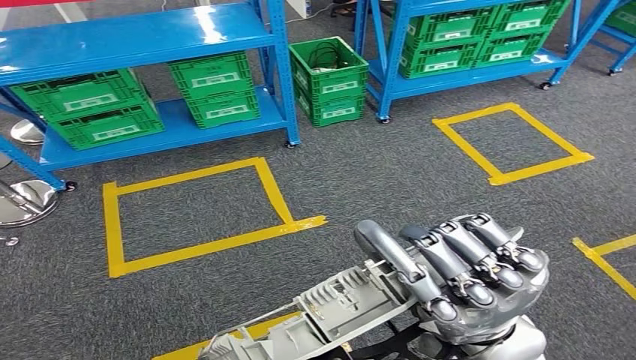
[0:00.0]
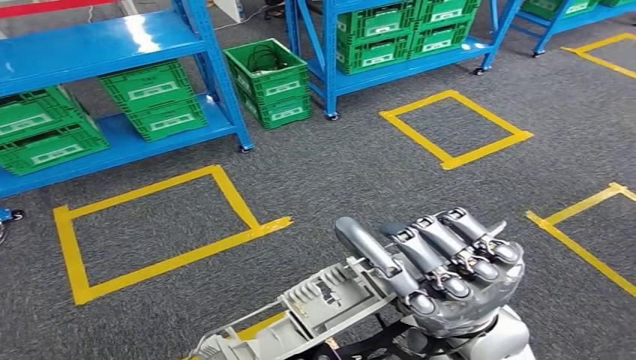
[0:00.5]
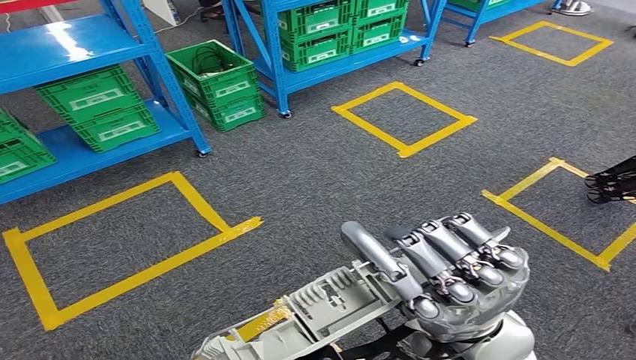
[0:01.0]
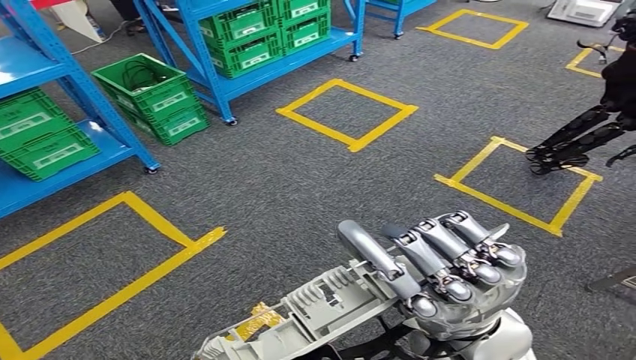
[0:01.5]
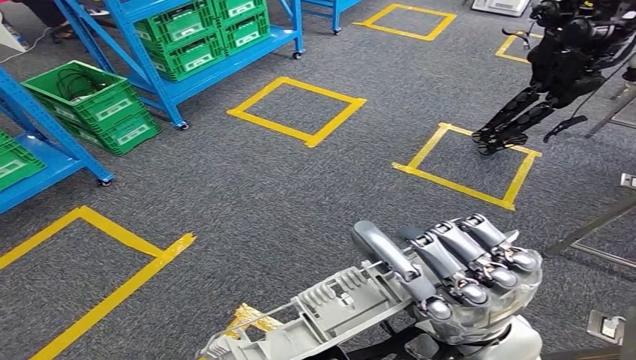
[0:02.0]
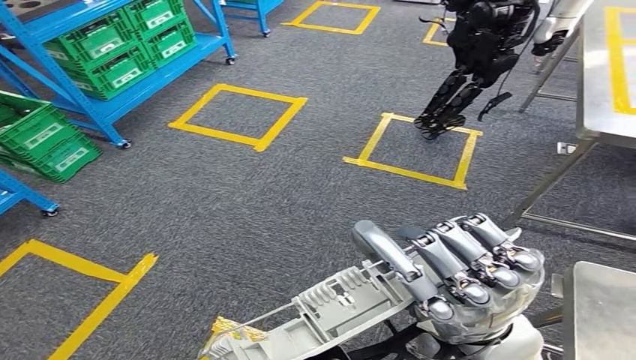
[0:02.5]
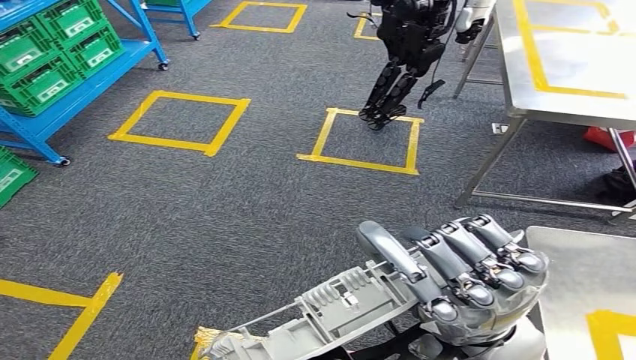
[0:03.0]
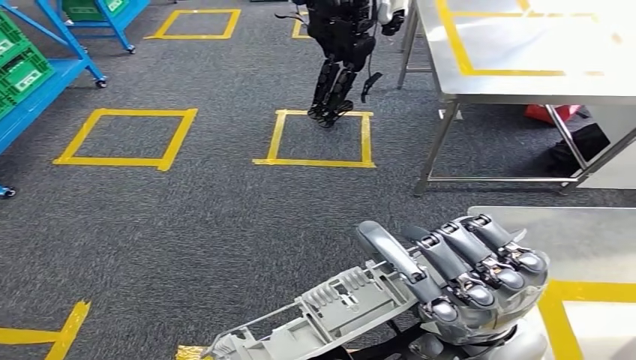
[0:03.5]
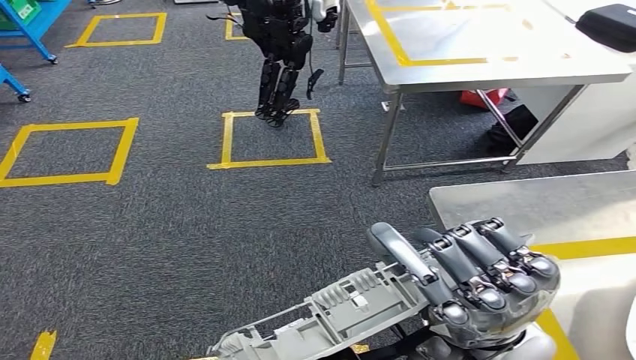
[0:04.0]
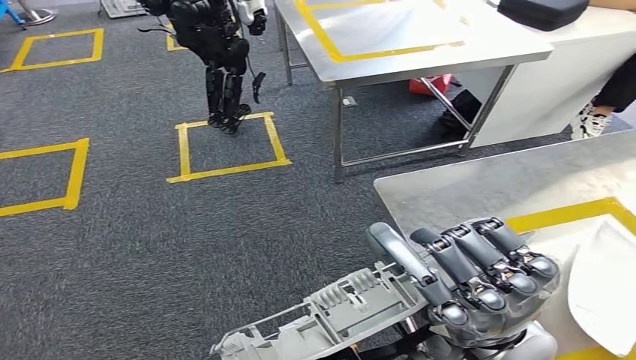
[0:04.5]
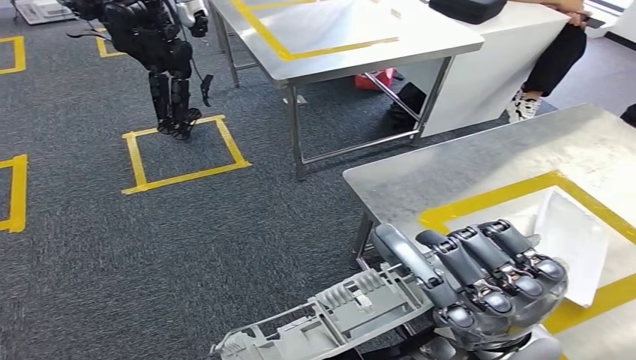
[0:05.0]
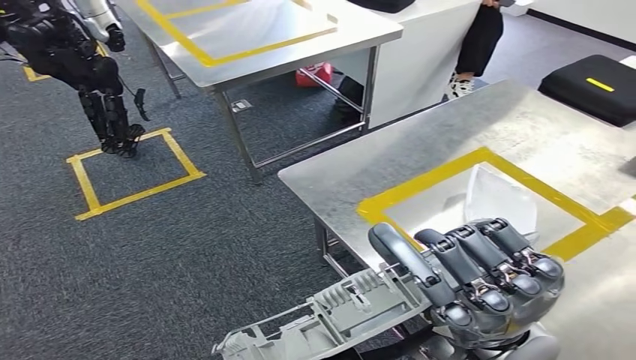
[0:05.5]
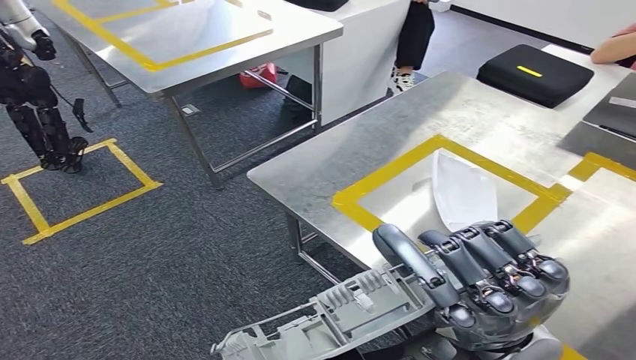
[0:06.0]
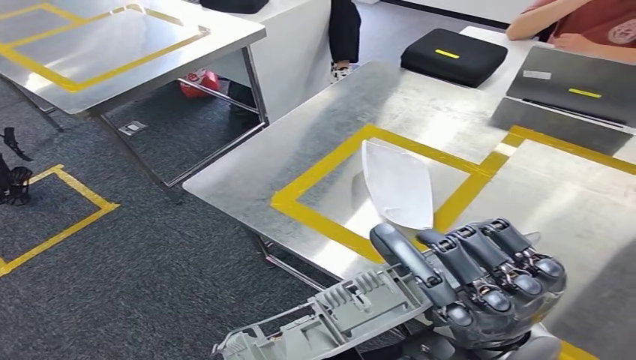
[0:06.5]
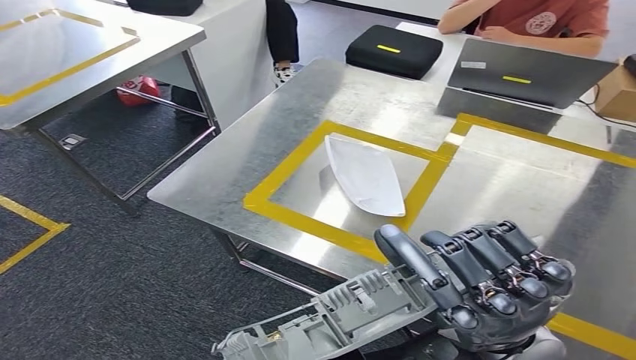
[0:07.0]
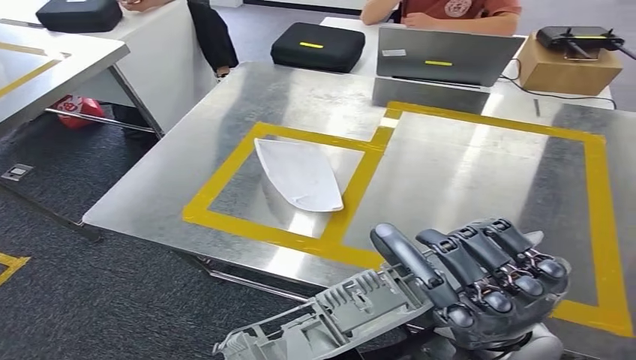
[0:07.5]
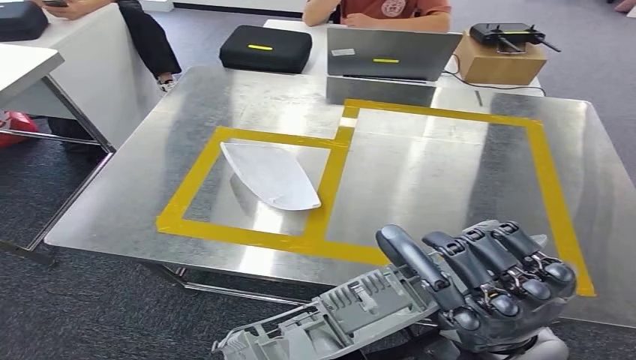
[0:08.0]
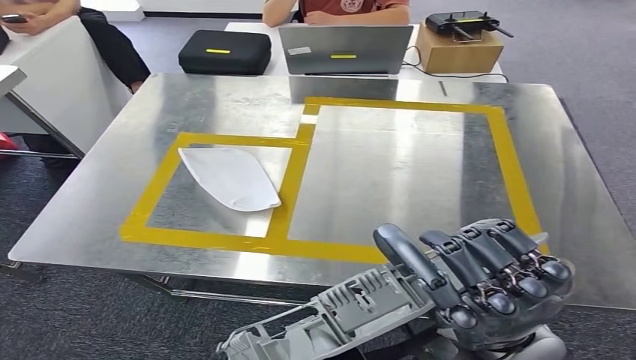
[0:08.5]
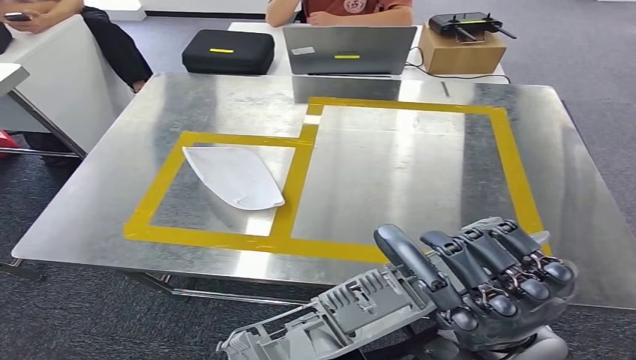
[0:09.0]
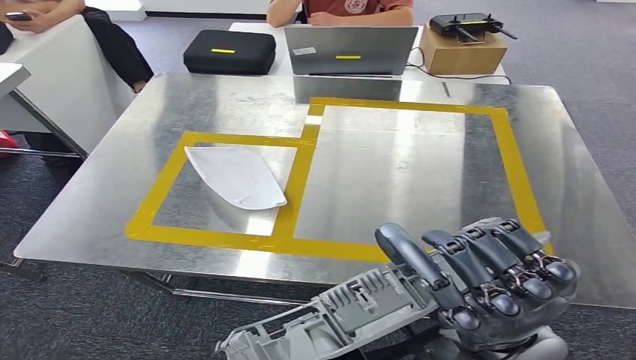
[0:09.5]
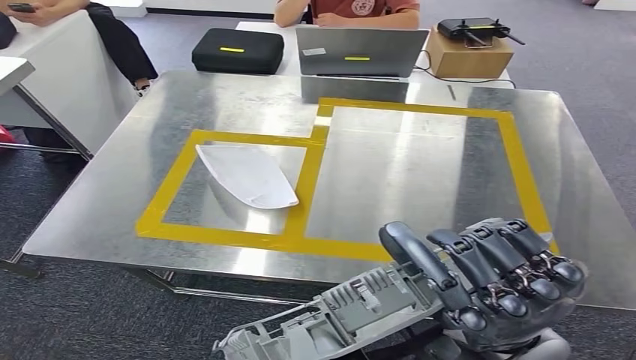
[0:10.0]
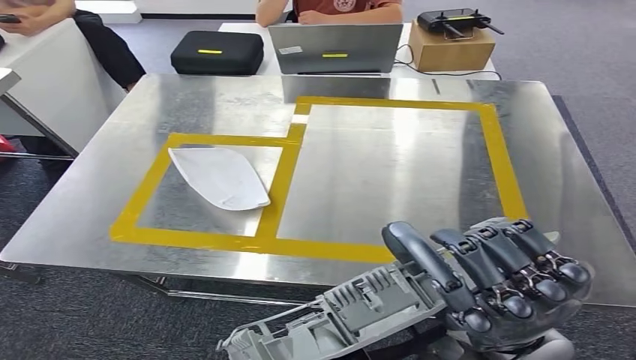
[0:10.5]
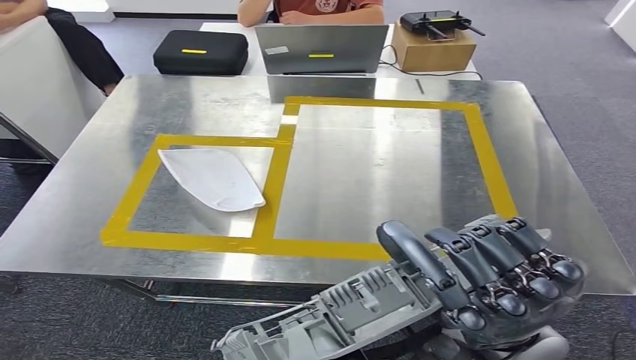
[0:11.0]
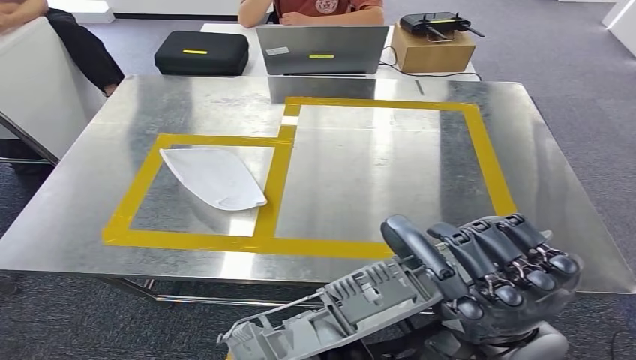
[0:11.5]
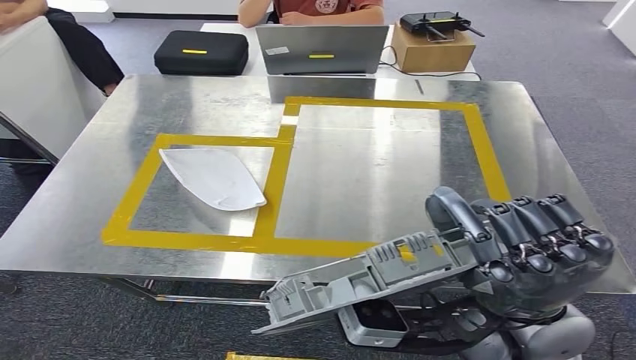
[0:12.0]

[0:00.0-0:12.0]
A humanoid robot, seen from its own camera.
Step, 0:00.0 to 0:02.5: Move the small component to the workbench.

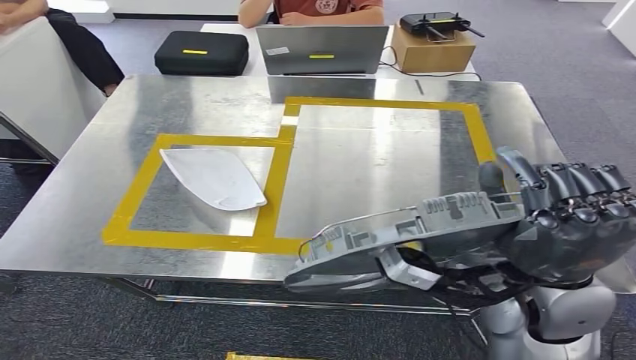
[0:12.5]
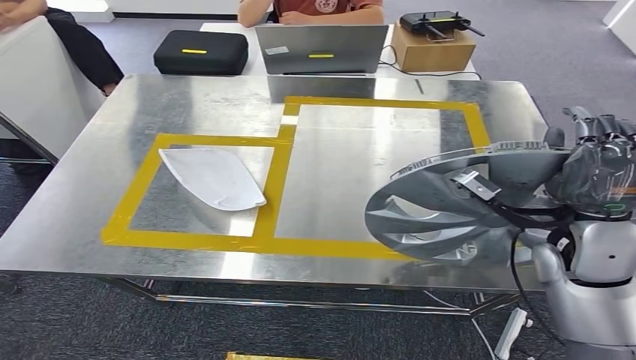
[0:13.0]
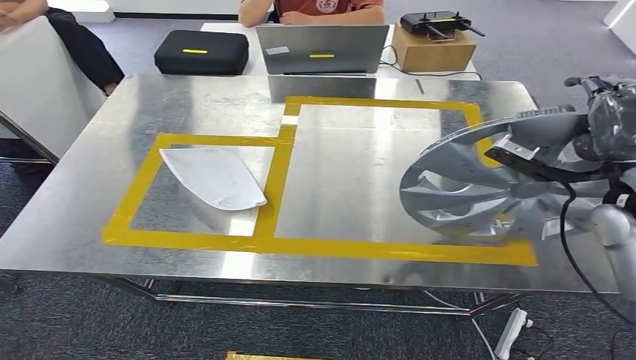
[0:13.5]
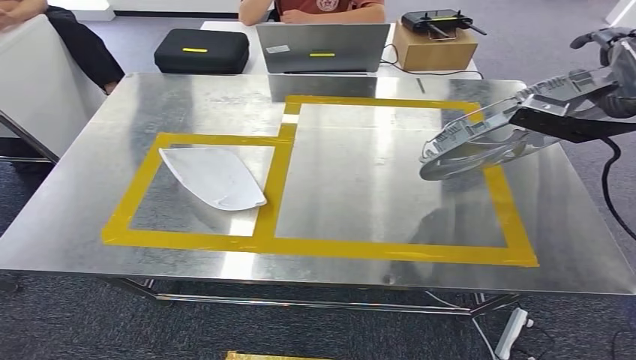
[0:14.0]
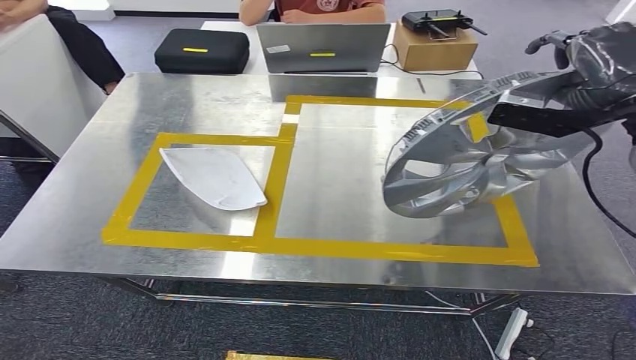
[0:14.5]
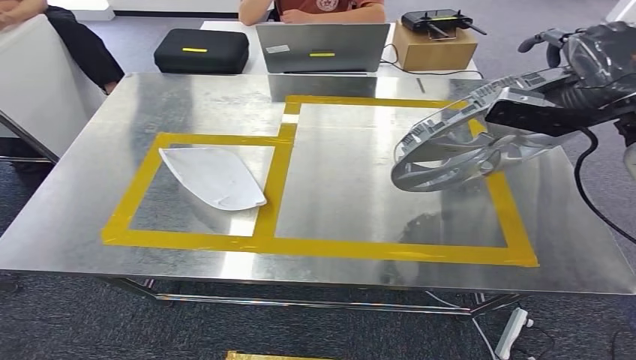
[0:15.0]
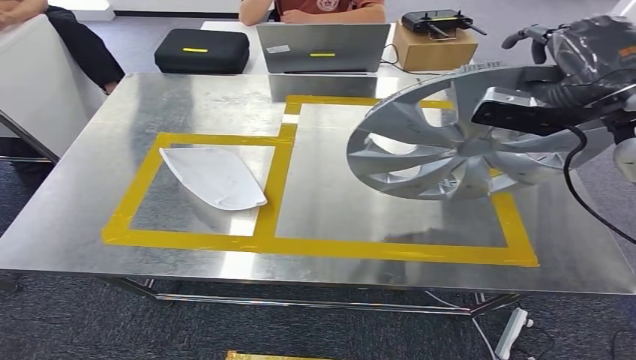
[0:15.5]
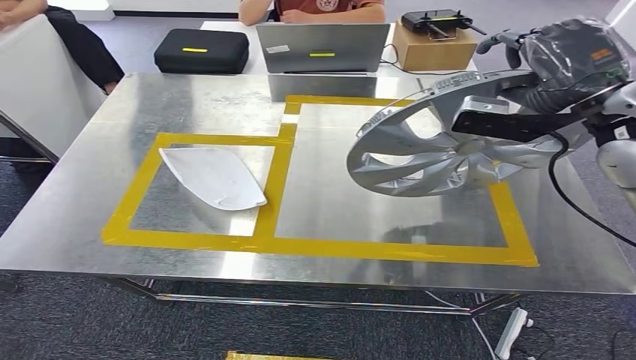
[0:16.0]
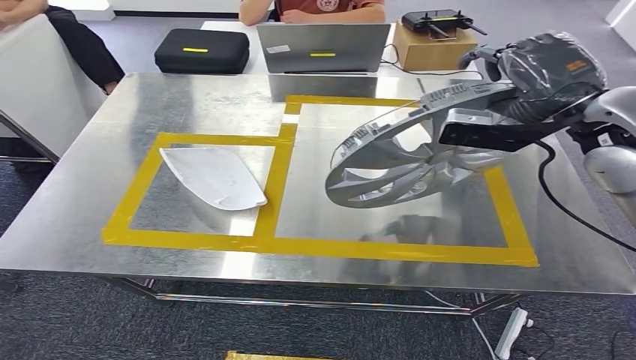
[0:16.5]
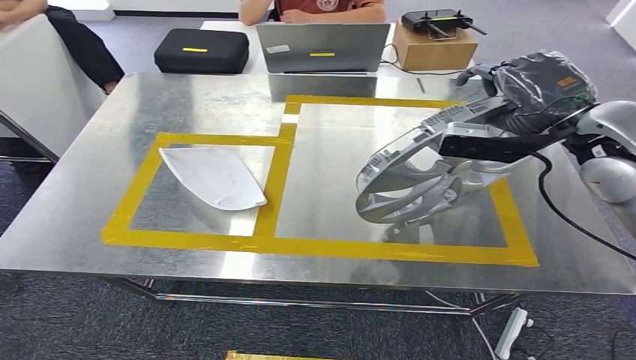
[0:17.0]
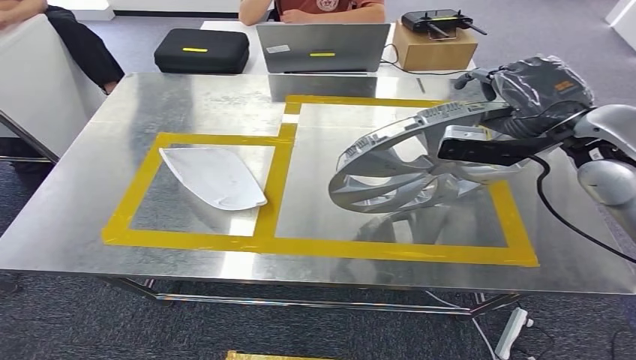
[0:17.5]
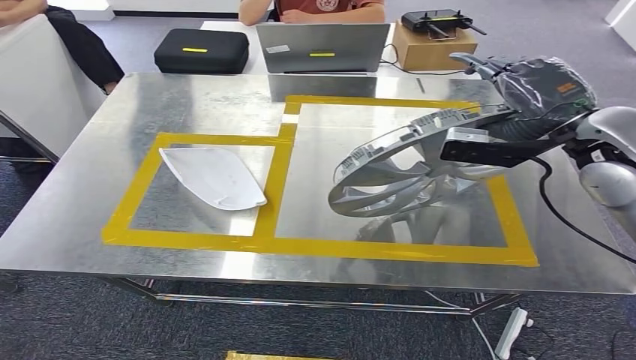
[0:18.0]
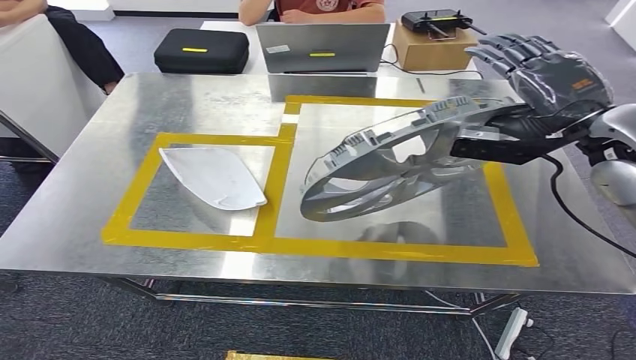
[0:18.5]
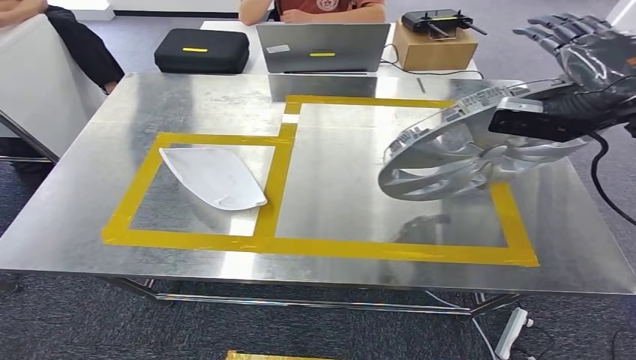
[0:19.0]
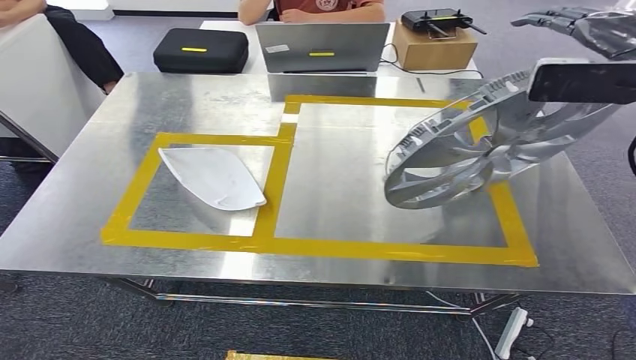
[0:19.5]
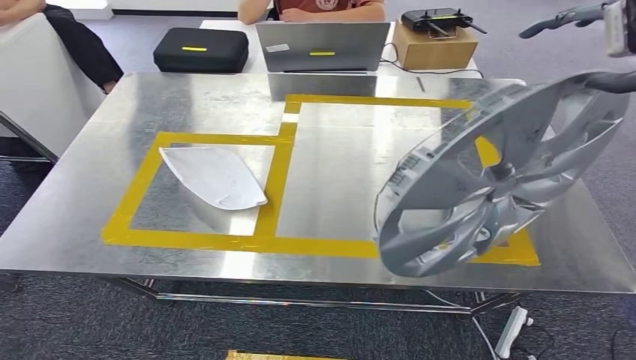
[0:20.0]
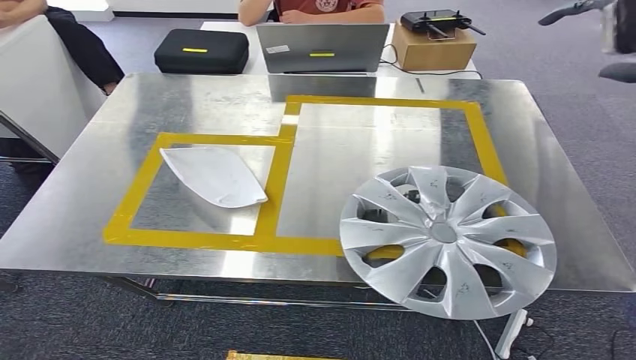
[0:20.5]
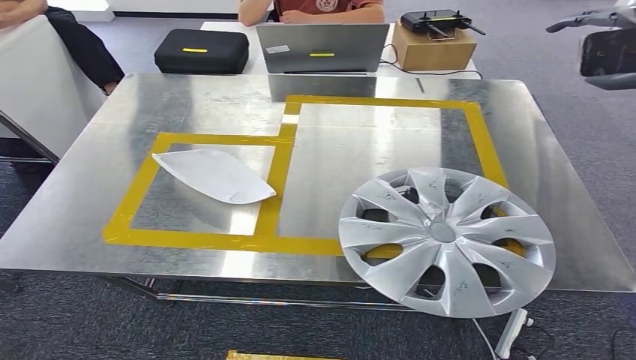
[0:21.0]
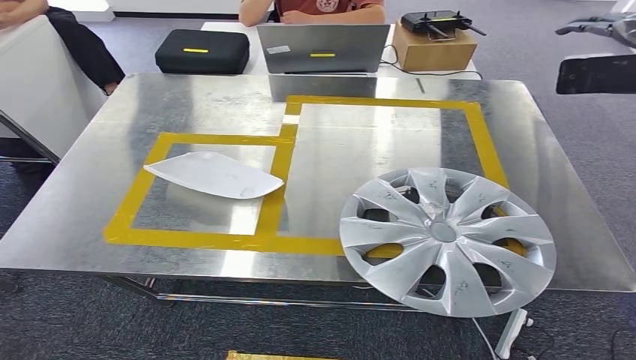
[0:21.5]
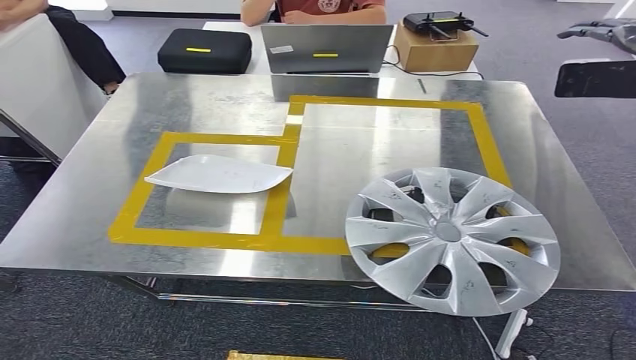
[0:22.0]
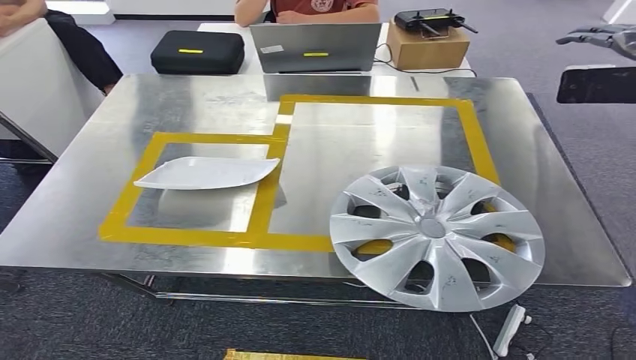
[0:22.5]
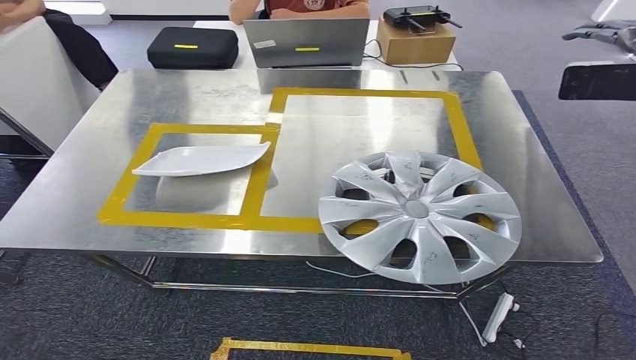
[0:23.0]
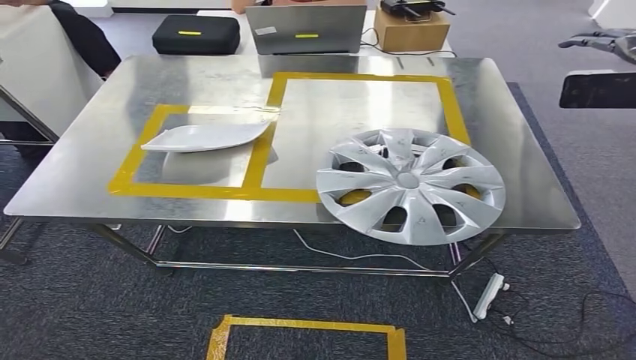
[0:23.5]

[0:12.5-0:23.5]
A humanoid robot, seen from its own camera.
0:14.5 to 0:18.0: The hands make only small movements.
0:18.0 to 0:20.0: The right hand moves upward, approximately 20 cm.
